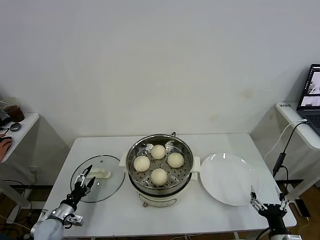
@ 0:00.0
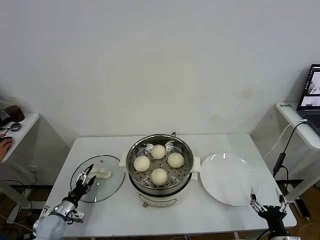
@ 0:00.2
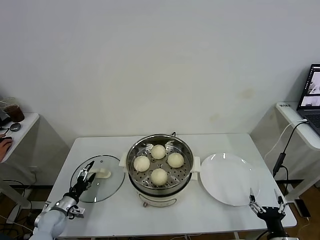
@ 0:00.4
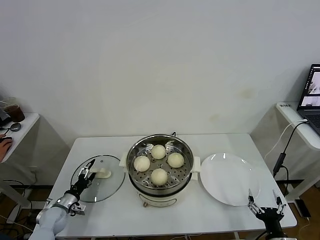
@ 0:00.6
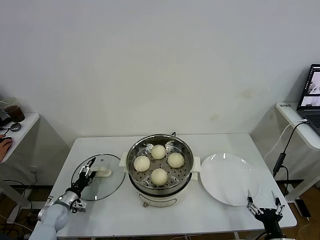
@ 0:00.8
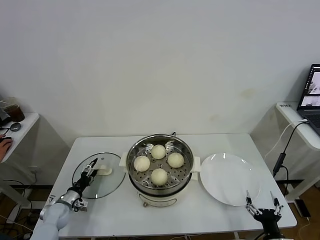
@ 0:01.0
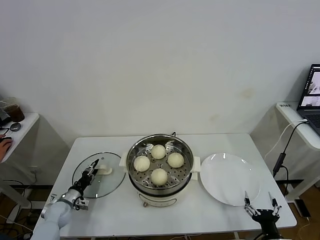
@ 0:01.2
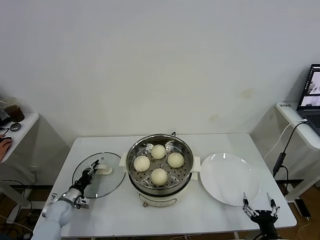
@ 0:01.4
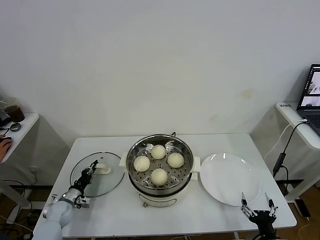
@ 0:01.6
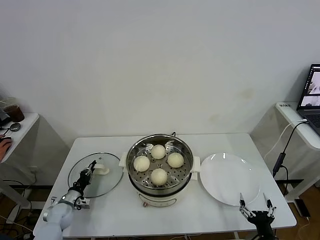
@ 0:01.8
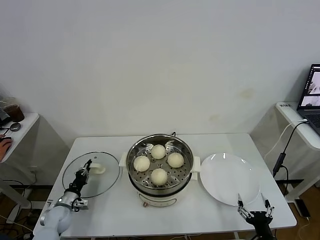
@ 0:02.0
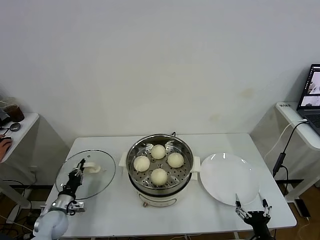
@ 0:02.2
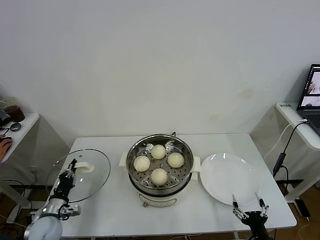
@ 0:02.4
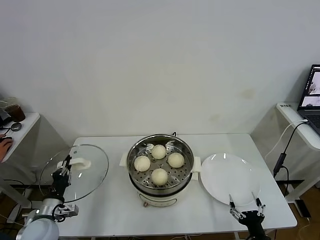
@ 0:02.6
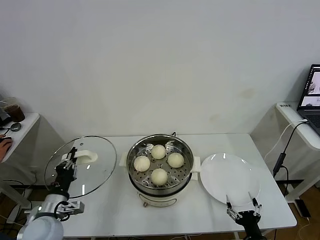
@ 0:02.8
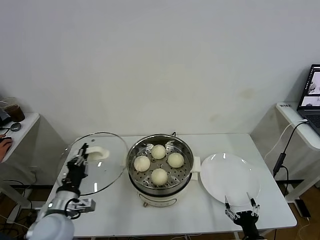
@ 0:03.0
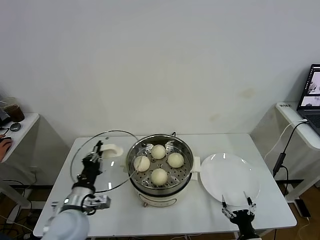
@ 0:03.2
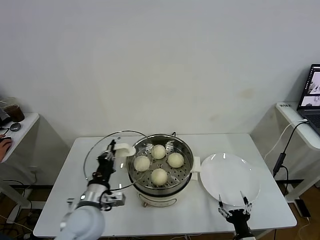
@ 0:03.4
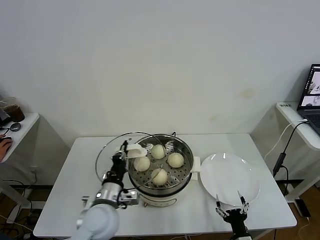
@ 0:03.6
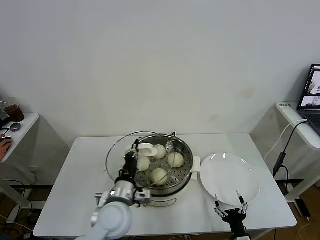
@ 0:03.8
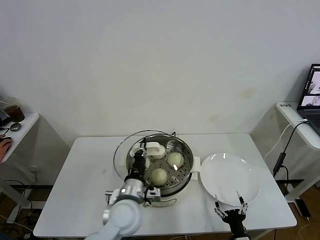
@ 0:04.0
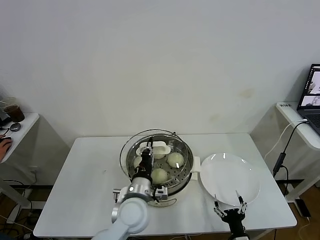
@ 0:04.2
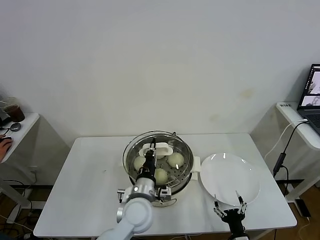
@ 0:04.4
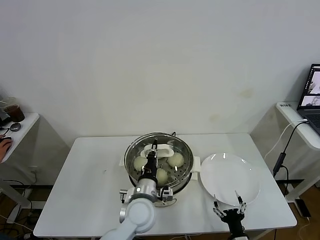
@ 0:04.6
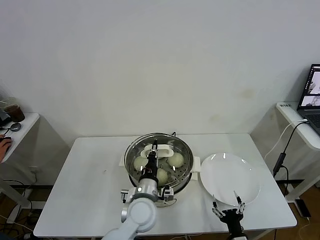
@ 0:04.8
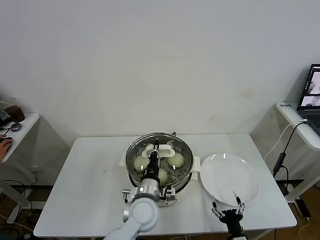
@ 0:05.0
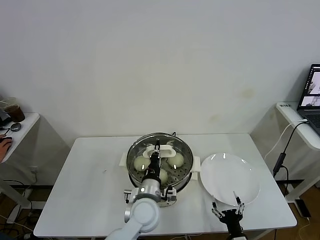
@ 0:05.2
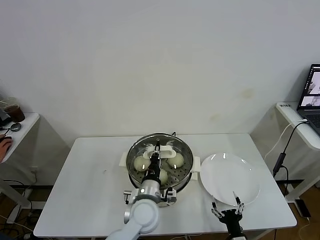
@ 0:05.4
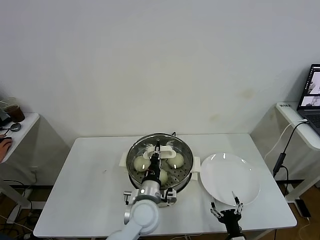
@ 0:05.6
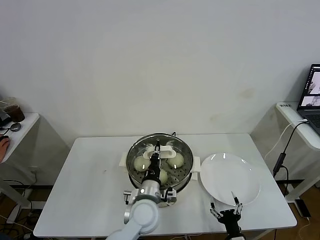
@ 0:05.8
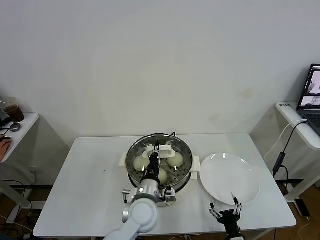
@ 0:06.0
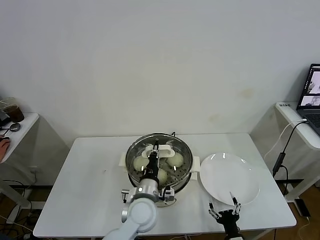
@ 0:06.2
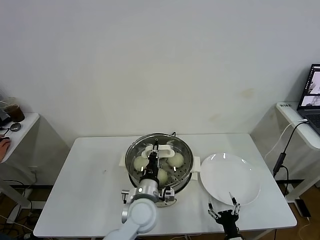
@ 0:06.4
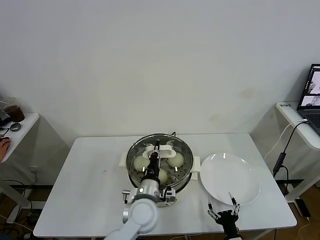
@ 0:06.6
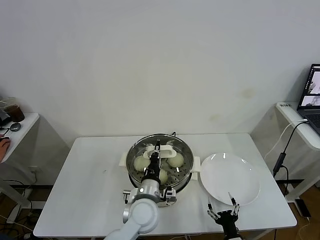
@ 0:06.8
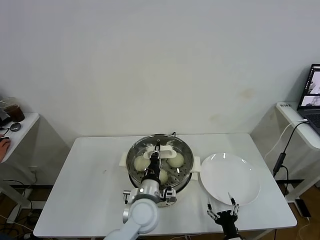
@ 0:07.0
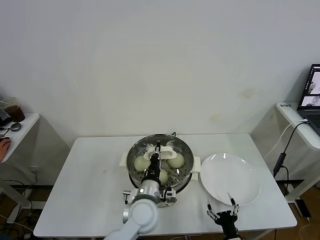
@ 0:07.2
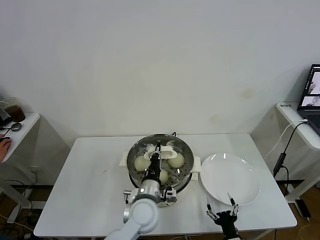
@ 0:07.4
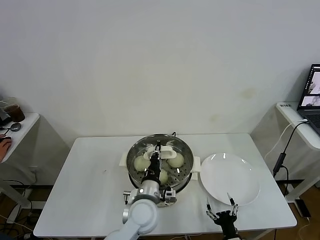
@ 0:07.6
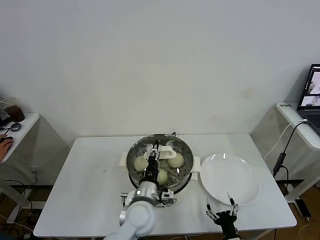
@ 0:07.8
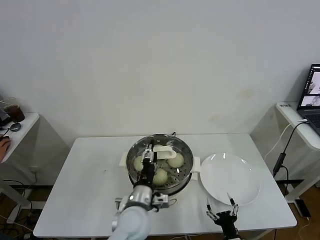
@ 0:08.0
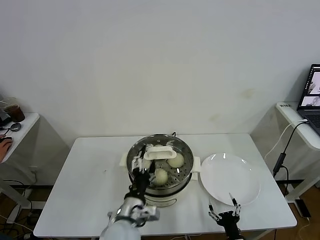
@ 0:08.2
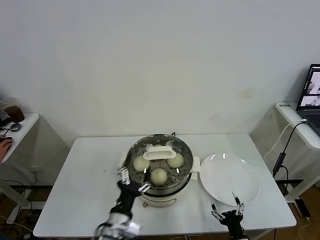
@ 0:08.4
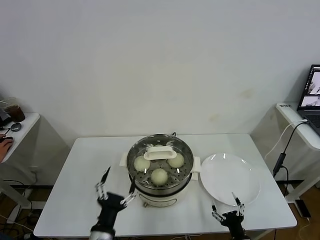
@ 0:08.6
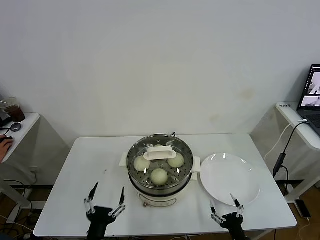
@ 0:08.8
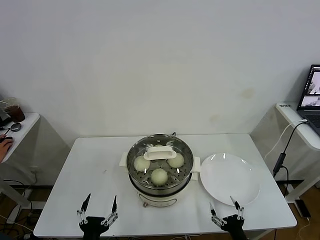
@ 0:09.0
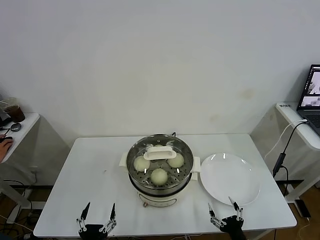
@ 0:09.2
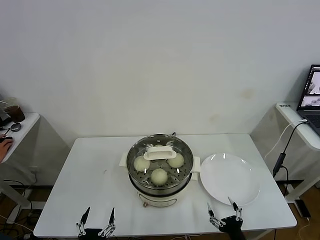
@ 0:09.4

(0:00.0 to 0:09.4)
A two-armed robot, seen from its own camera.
Task of the whole recording: take steamed baozi put them in steamer.
Step, 0:01.8 - 0:07.8: Place the pot lid on the steamer with left gripper.
0:00.0 - 0:01.6: The left gripper shifts about 10 cm forward, and closes up.
0:01.6 - 0:03.2: The left gripper heads upward, to the right and backward, covering roughly 30 cm.
0:03.2 - 0:04.8: The left gripper goes approximately 20 cm to the right.
0:04.8 - 0:06.2: Both grippers stay about where they are.
0:06.2 - 0:07.8: Both grippers stay about where they are.
0:07.8 - 0:09.4: The right gripper changes place by roughly 5 cm. Meanwhile the left gripper is displaced backward and to the left by roughly 25 cm, and opens its fingers.

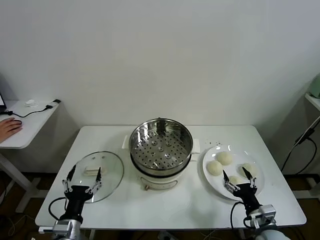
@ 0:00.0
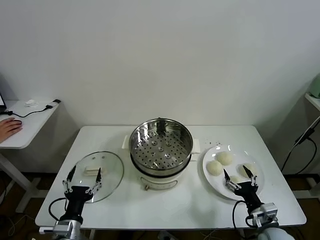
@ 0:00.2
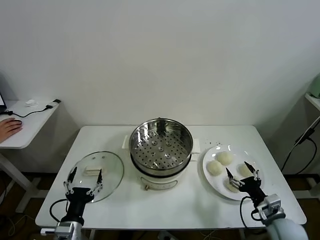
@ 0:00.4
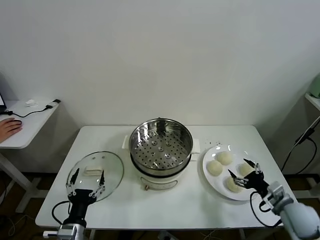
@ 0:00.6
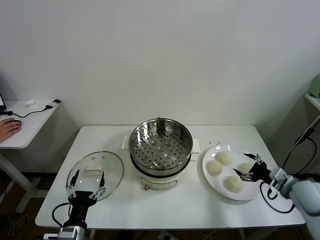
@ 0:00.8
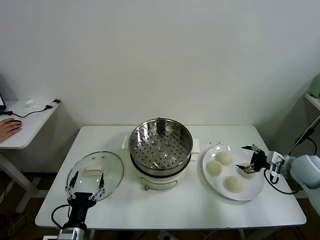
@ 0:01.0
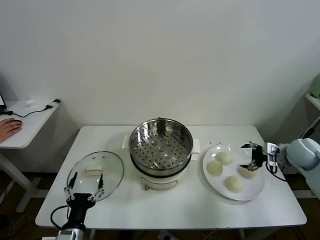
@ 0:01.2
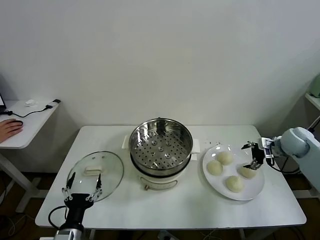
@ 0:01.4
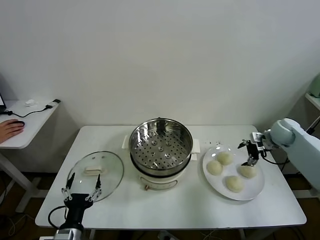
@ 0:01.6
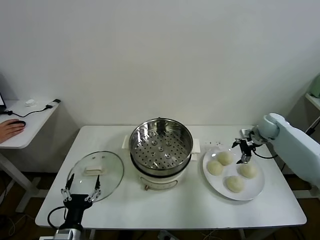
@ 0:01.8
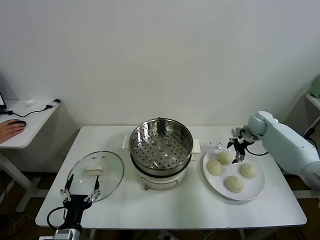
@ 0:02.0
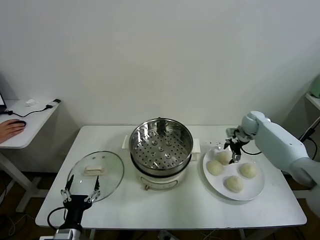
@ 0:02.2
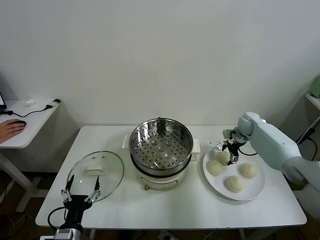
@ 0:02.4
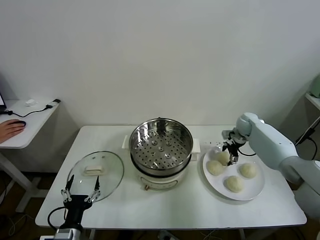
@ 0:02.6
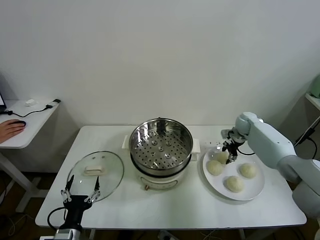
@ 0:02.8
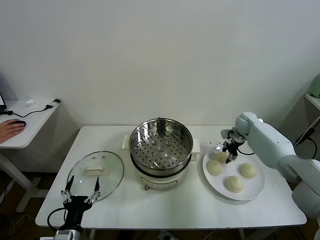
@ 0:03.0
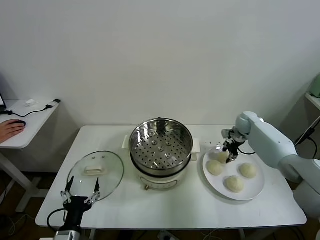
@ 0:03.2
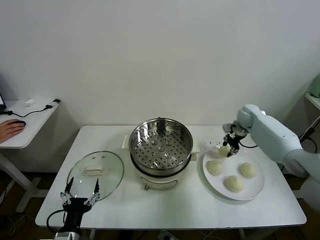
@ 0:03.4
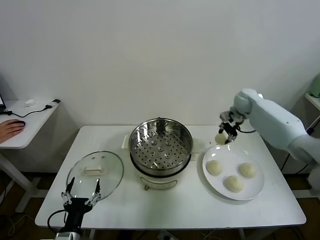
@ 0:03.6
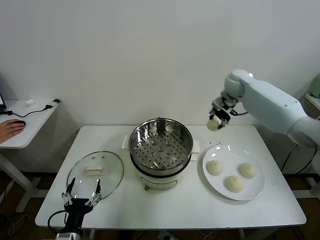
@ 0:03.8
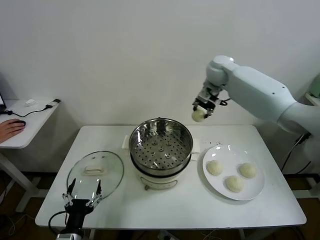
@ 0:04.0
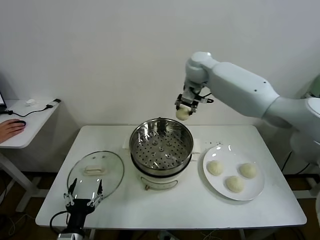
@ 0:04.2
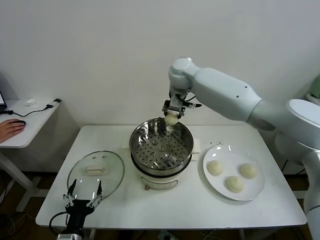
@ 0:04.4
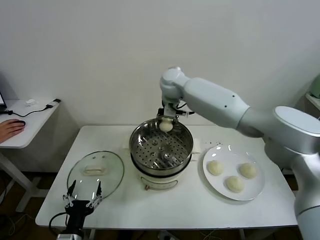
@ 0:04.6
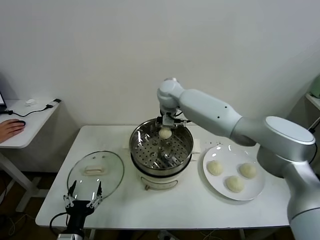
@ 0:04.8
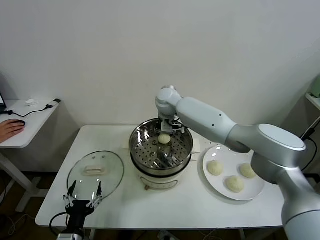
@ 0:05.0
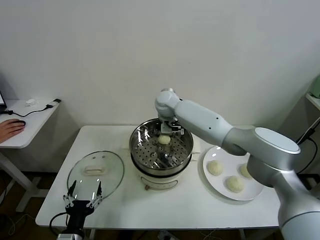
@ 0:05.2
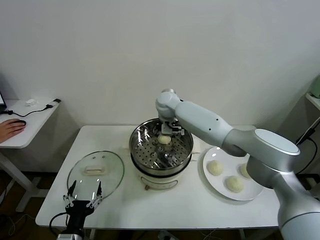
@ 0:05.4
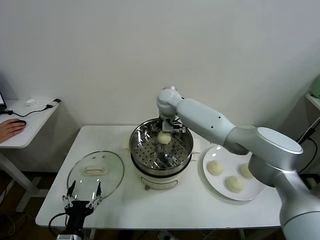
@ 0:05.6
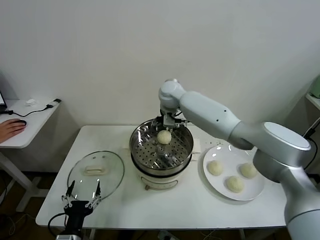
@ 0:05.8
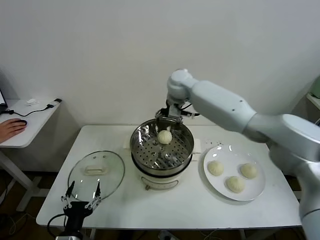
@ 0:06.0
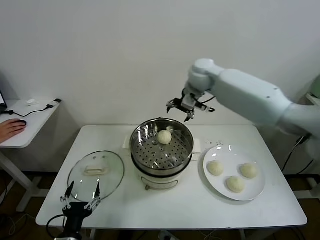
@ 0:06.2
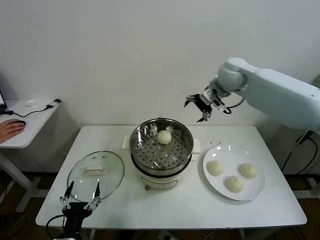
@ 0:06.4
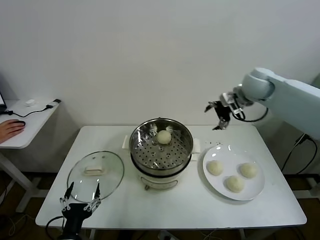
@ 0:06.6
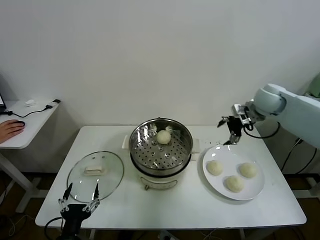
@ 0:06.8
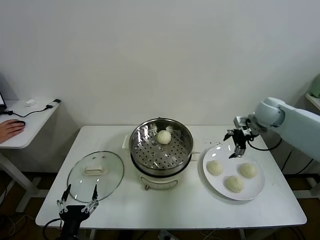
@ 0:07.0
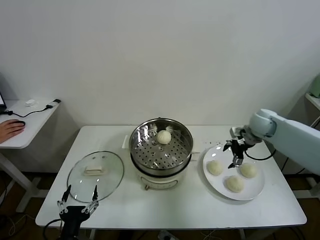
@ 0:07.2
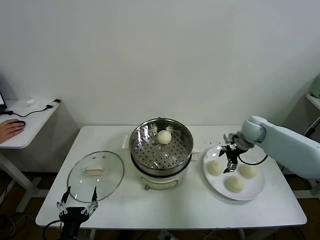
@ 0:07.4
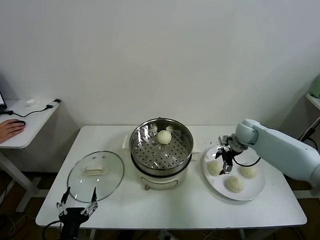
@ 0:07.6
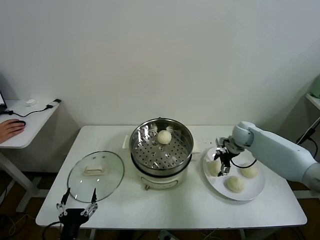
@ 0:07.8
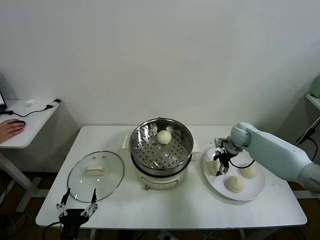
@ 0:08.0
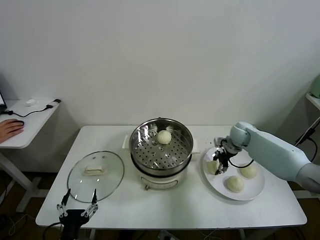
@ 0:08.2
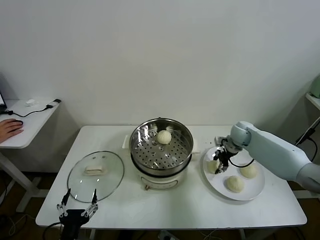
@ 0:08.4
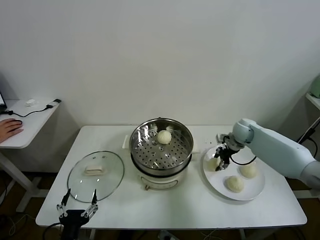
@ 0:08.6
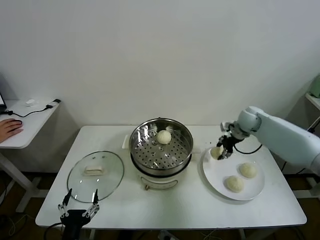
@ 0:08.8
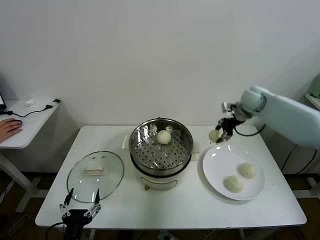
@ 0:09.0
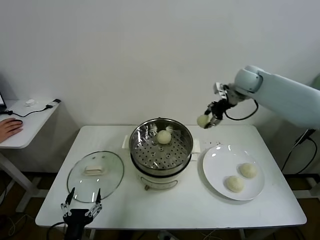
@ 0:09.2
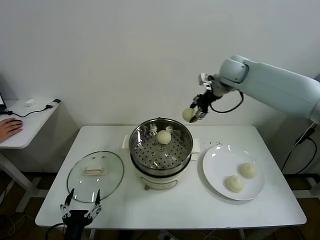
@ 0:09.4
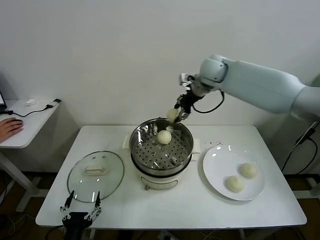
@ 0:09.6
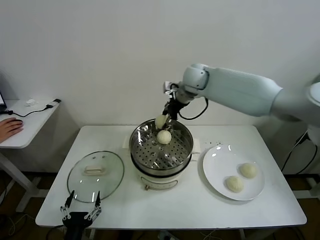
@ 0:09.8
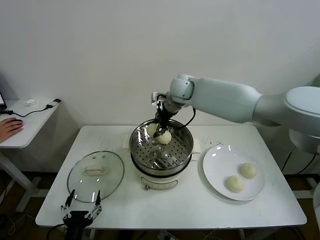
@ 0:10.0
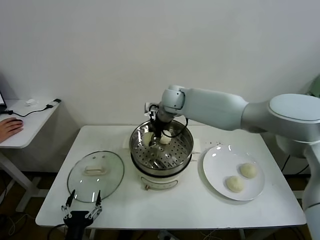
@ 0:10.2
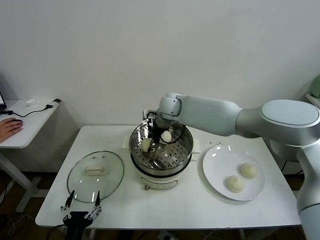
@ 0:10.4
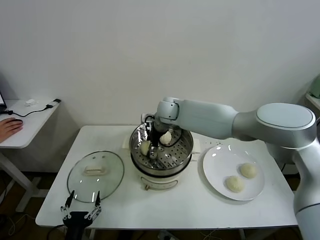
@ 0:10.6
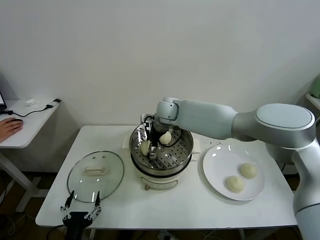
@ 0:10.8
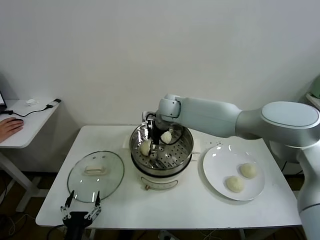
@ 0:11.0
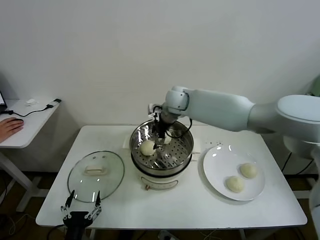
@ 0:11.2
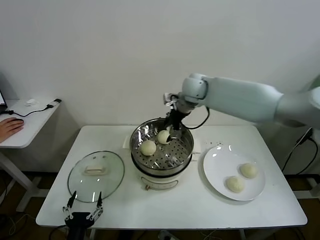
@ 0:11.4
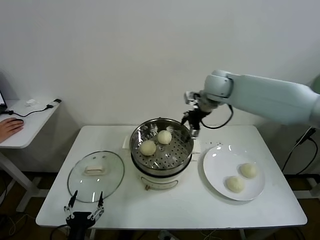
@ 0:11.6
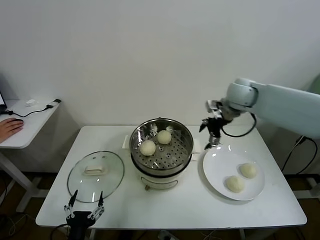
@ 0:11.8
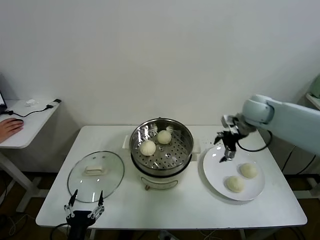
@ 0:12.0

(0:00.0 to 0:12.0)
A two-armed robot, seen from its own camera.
Task of the whole recording: take steamed baozi put them in steamer.
Step, 0:00.0 - 0:02.8: Grasp the baozi in the plate with right gripper.
Step, 0:03.0 - 0:05.4: Place the baozi on the steamer with right gripper.
Step, 0:05.8 - 0:08.0: Grasp the baozi in the plate with right gripper.
Step, 0:08.2 - 0:10.8: Place the baozi on the steamer with right gripper.
0:01.6 - 0:03.0: The right gripper shifts about 10 cm forward and to the left, and closes its fingers.
0:03.0 - 0:04.4: The right gripper goes roughly 40 cm to the left and upward.
0:04.4 - 0:06.0: The right gripper heads to the right, covering approximately 5 cm, travels downward and back again, about 10 cm each way, and opens.
0:06.0 - 0:07.6: The right gripper travels to the right and downward by about 30 cm.
0:07.6 - 0:09.0: The right gripper moves upward, some 15 cm, and closes.
0:09.0 - 0:10.4: The right gripper is displaced to the left by about 30 cm.
0:10.4 - 0:12.0: The right gripper travels to the right by roughly 30 cm, and opens.
